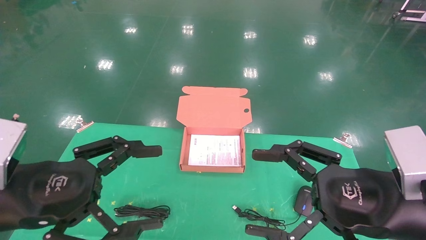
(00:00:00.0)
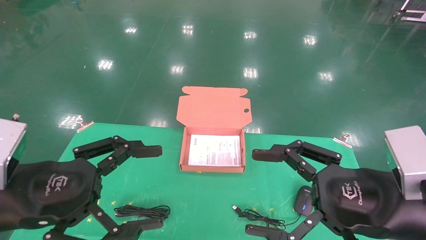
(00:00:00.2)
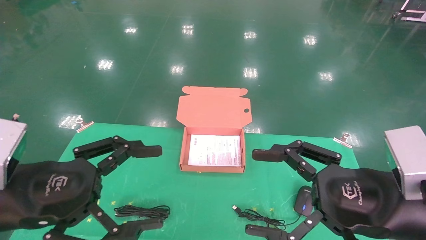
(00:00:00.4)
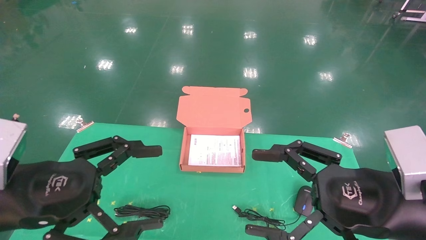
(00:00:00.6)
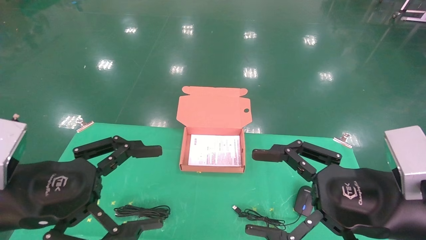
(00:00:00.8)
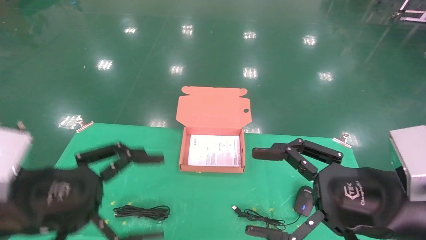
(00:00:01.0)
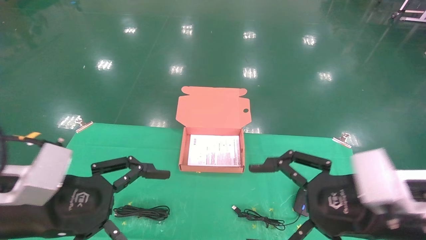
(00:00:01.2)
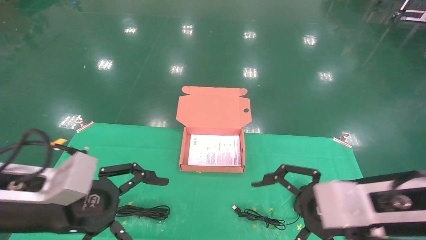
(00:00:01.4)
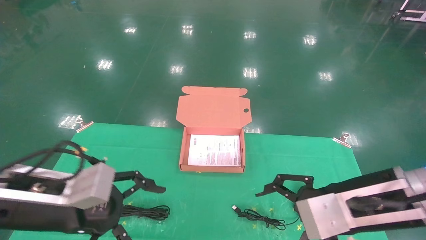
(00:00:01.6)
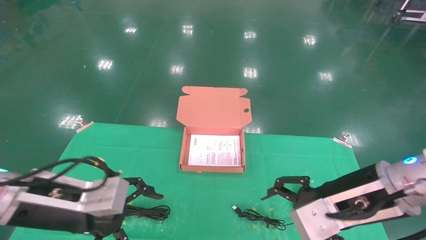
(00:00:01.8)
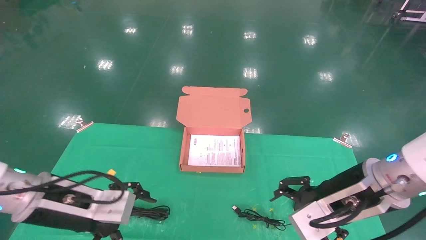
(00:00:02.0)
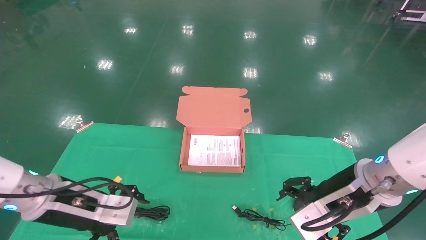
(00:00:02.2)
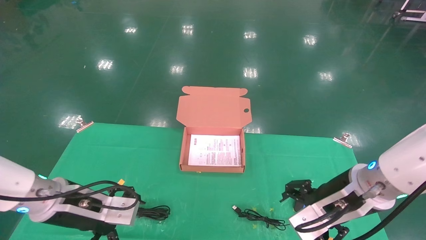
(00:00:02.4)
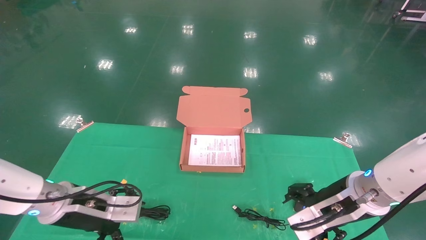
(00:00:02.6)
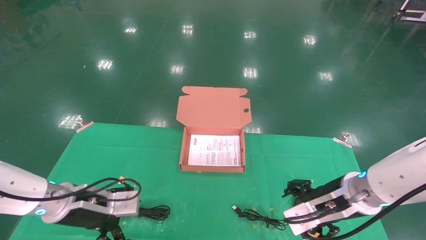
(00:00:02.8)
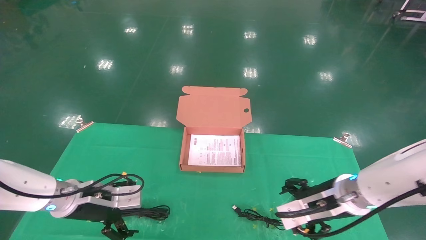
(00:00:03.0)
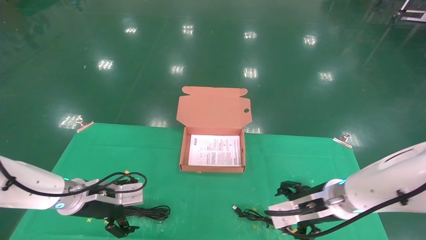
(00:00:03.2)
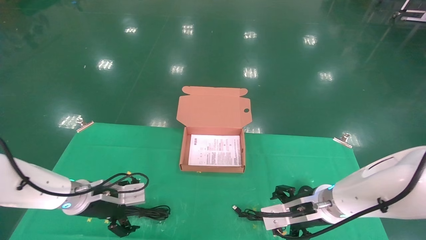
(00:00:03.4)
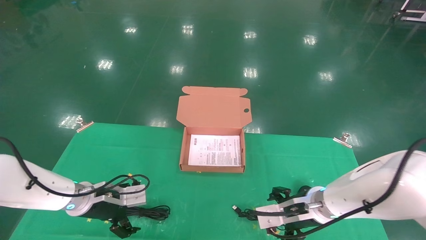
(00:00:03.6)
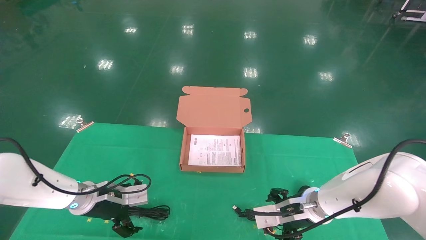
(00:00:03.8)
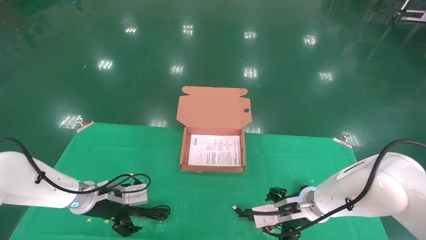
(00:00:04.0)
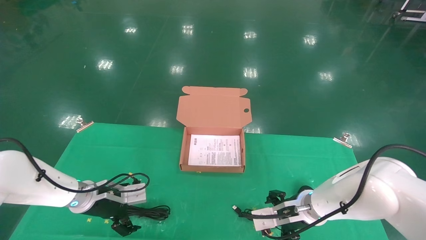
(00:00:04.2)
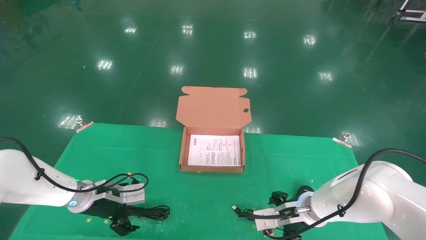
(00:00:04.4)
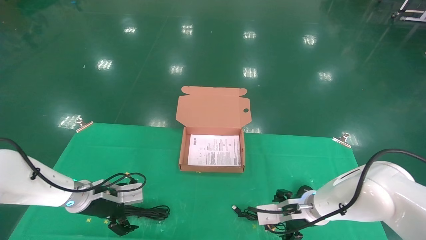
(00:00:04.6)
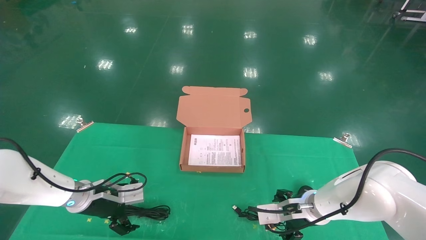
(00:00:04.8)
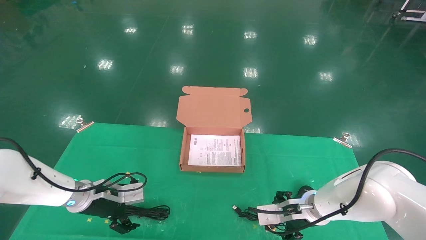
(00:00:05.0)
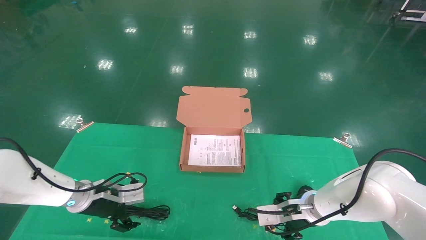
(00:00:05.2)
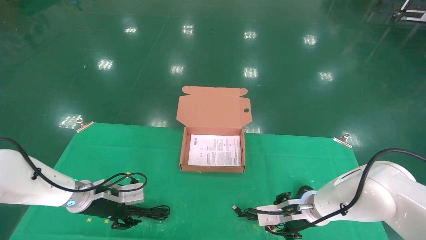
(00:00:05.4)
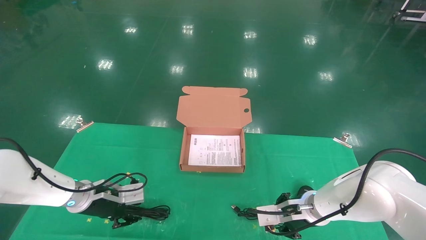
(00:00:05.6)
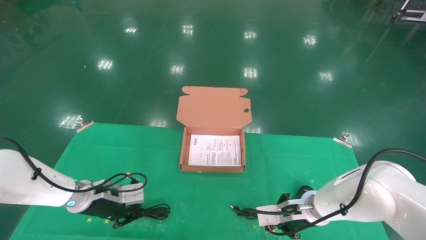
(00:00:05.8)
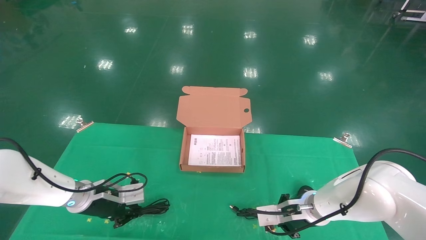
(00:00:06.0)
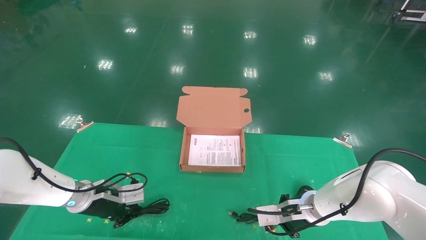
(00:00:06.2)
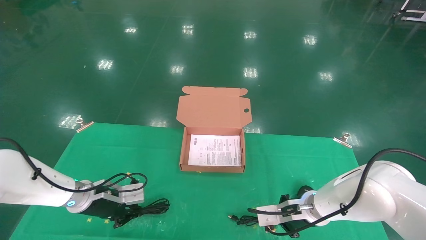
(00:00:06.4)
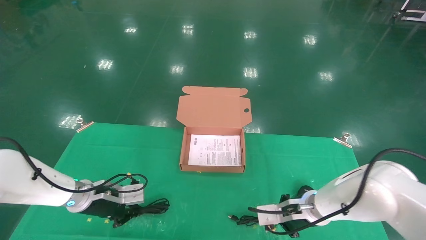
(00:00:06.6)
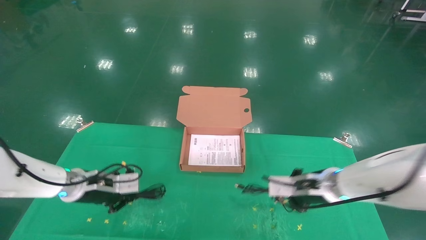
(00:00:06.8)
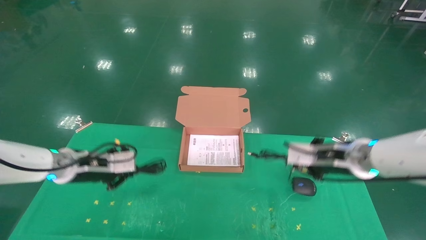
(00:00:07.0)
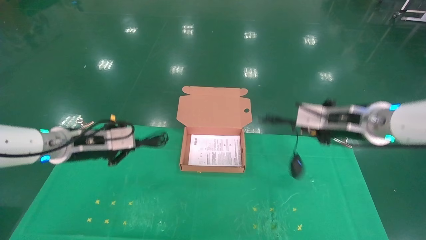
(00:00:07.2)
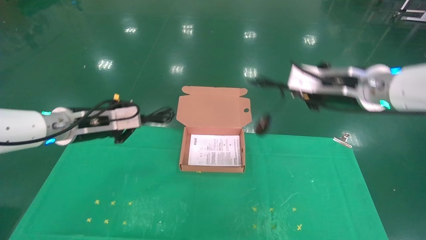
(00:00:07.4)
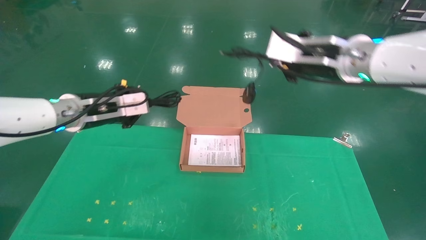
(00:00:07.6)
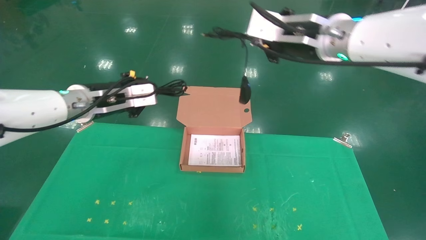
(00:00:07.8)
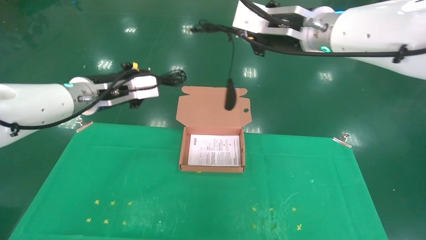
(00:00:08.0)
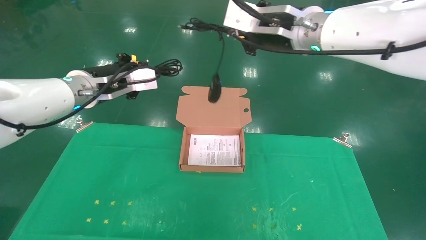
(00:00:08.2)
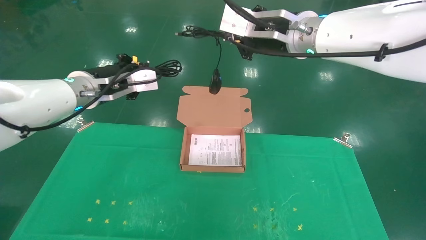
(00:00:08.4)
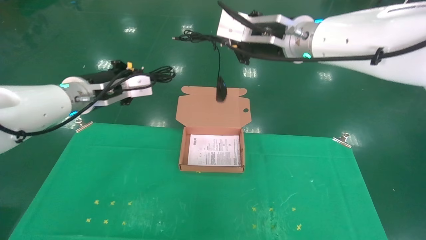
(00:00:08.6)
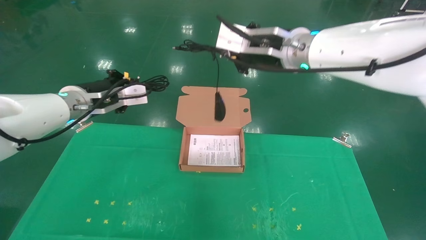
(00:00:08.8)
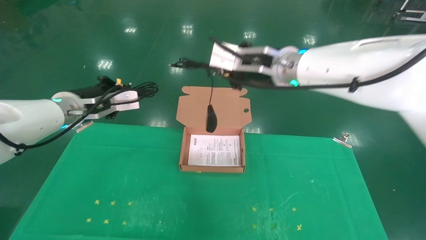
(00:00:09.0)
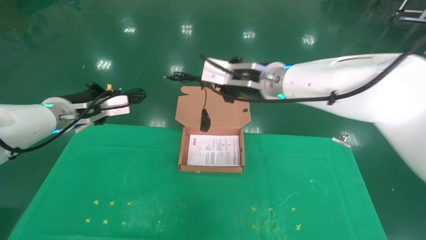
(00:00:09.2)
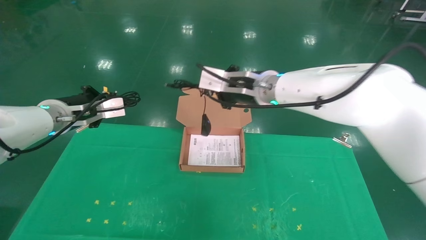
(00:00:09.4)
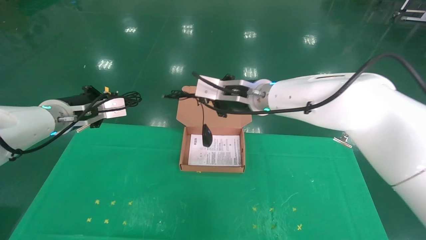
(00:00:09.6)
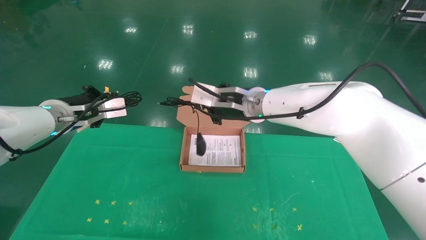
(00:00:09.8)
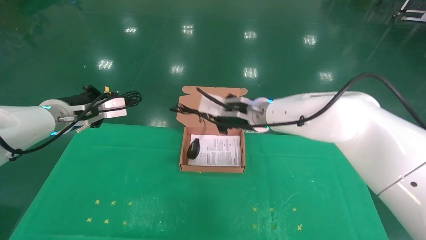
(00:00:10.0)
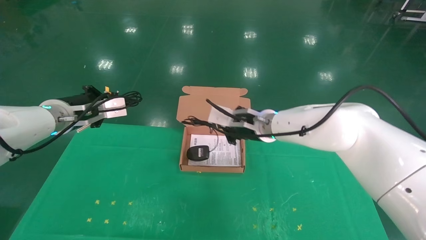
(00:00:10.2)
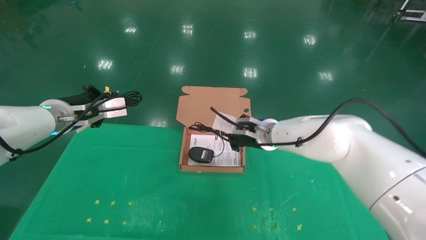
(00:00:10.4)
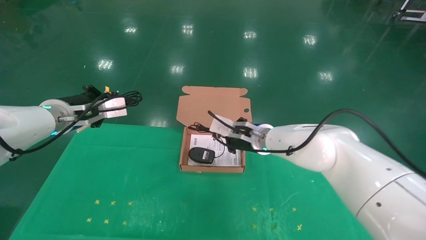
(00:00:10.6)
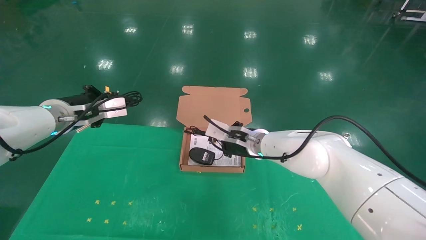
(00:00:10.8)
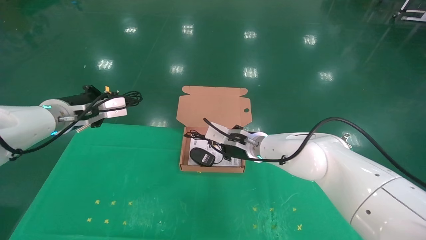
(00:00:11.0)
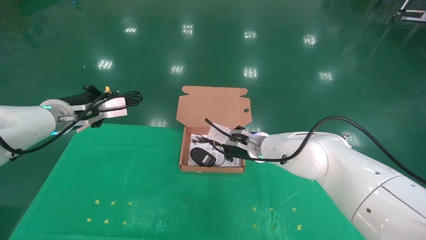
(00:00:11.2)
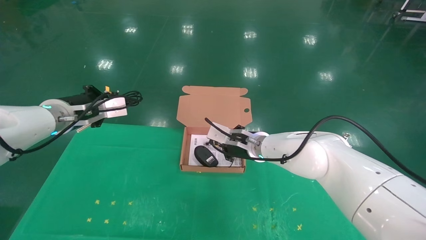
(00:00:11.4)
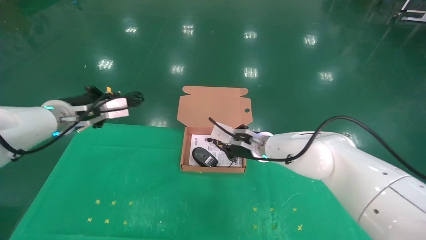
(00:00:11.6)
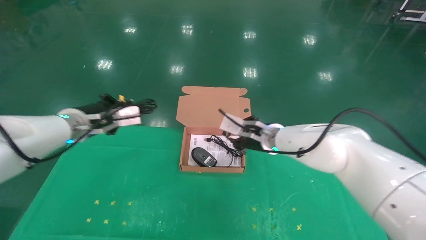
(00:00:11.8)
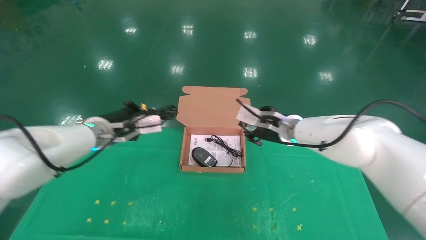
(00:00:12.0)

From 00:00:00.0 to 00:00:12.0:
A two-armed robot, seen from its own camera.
Task of the whole recording: grasp data cable left put into box grasp mouse right put into box.
Step, from 00:00:01.2 to 00:00:06.2: Grab and pick up both the mouse and power cord from the accessory packaging area at the same time.
From 00:00:00.0 to 00:00:01.6: Both grippers travel together forward, approximately 5 cm.
From 00:00:01.6 to 00:00:03.0: Both grippers move forward and downward, roughly 15 cm.
From 00:00:03.0 to 00:00:04.4: The right gripper shifts some 10 cm downward and forward, while the left gripper heads forward, covering some 5 cm.
From 00:00:04.4 to 00:00:06.0: The right gripper closes up; the left gripper closes.
From 00:00:06.0 to 00:00:07.6: The right gripper moves upward, some 30 cm. Meanwhile the left gripper heads upward, covering about 20 cm.
From 00:00:07.6 to 00:00:09.0: The right gripper is displaced to the left by some 10 cm.
From 00:00:09.0 to 00:00:10.4: The right gripper is displaced downward and forward by approximately 15 cm.
From 00:00:10.4 to 00:00:12.0: The right gripper shifts about 5 cm to the right, and opens up; the left gripper is displaced to the right and downward by about 10 cm.

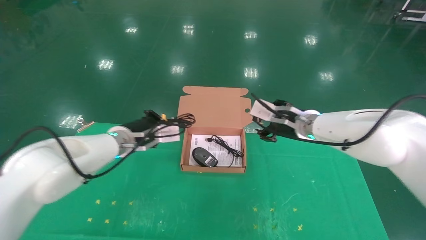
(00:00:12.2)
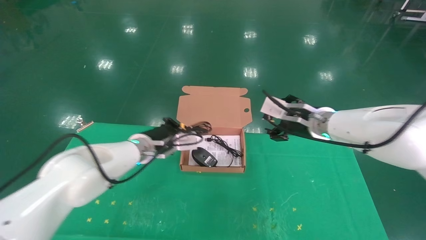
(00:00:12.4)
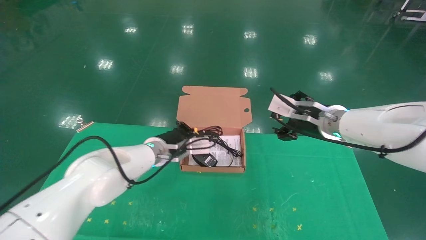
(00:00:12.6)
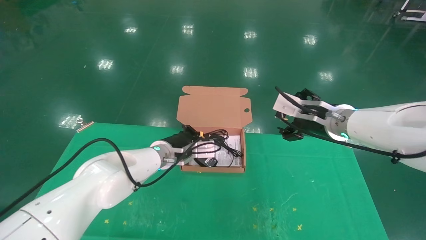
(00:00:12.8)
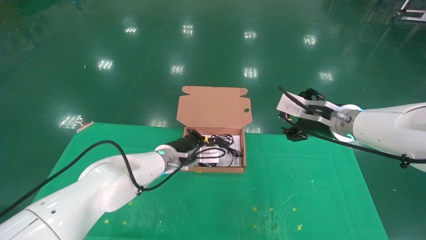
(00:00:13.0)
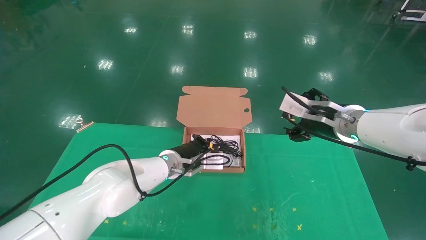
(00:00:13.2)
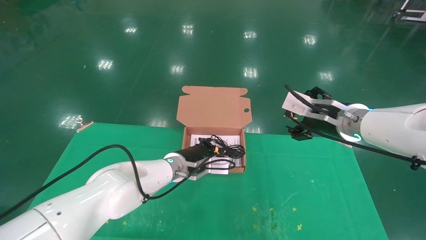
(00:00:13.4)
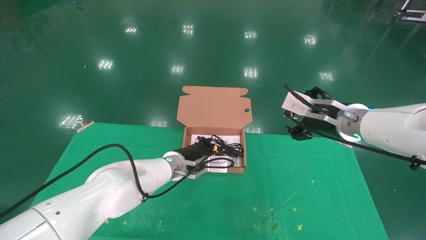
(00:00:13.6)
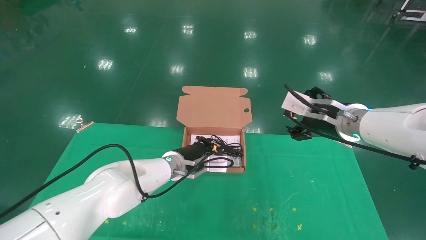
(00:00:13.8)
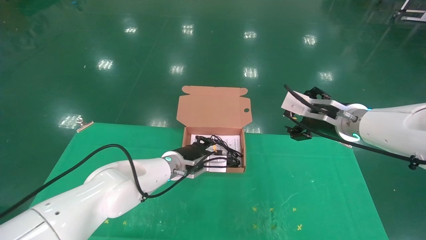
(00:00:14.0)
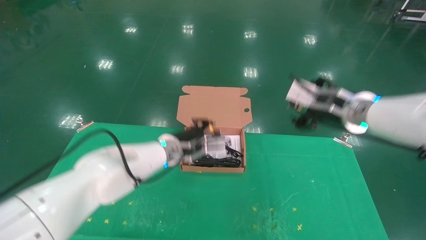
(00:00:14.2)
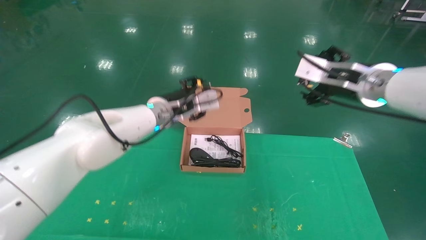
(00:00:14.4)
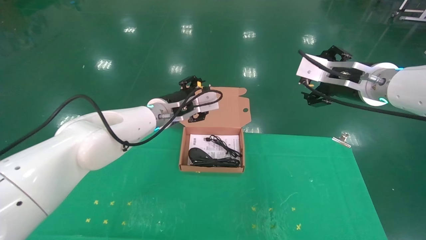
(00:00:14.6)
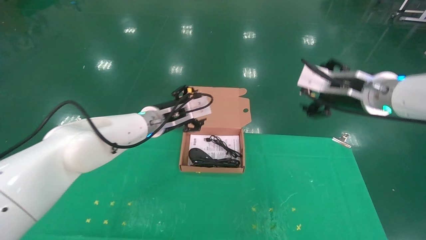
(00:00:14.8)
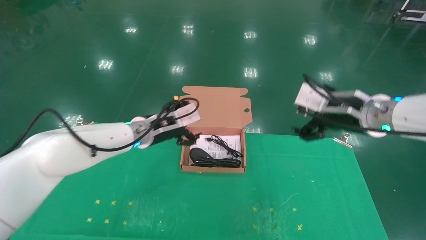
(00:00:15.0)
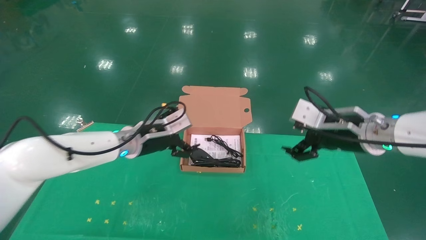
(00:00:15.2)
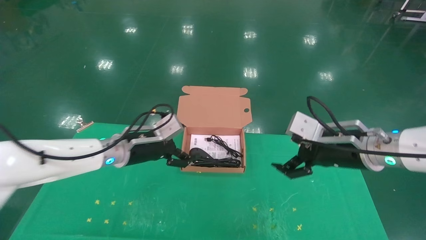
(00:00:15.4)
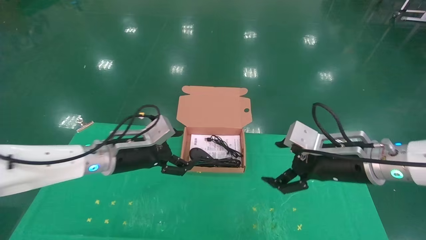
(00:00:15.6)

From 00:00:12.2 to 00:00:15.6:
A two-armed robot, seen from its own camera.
Task of the whole recording: grasp data cable left put into box grasp mouse right put into box.
Step, from 00:00:12.2 to 00:00:14.4: Place the mouse and power cord into the box.
From 00:00:12.2 to 00:00:13.8: The right gripper heads backward and to the right, covering some 10 cm, and opens up. Meanwhile the left gripper travels to the right and downward by about 15 cm.
From 00:00:13.8 to 00:00:15.6: The right gripper moves backward, roughly 5 cm. The left gripper shifts some 15 cm to the left, backward and upward, and opens up.
